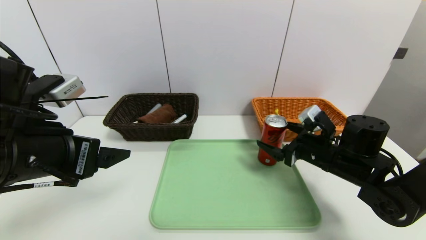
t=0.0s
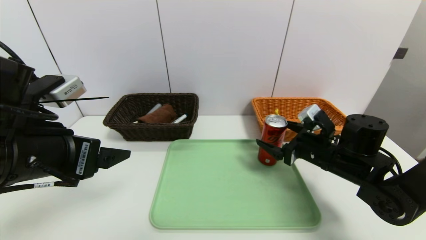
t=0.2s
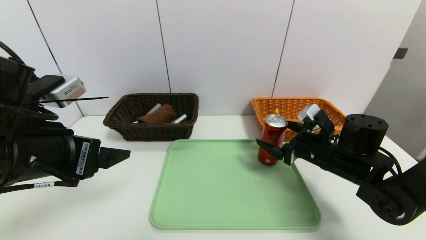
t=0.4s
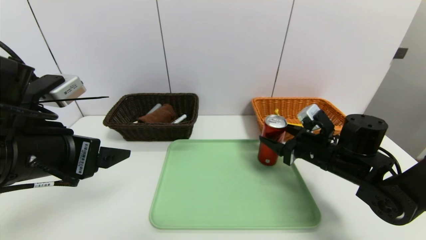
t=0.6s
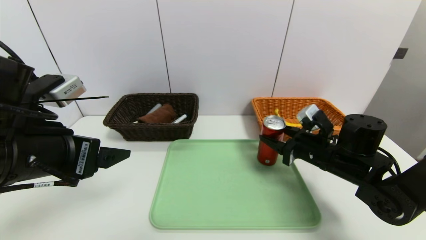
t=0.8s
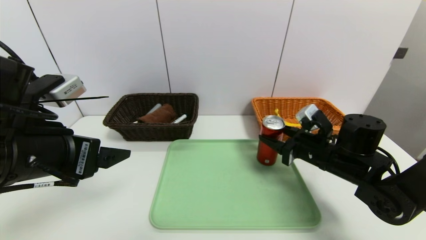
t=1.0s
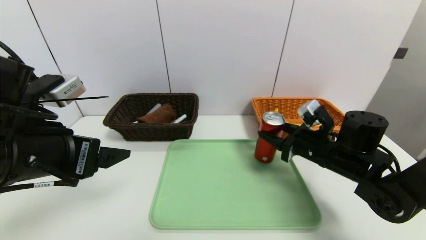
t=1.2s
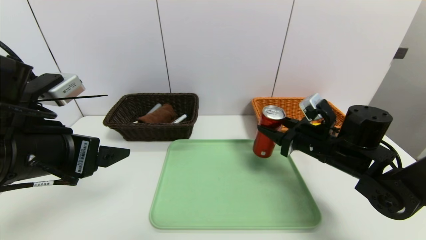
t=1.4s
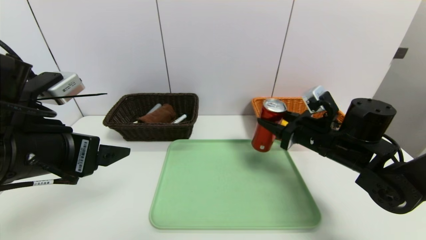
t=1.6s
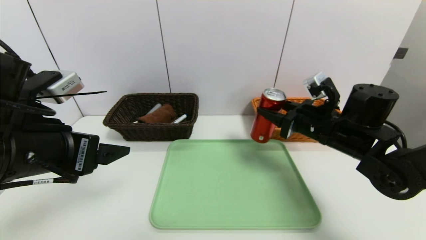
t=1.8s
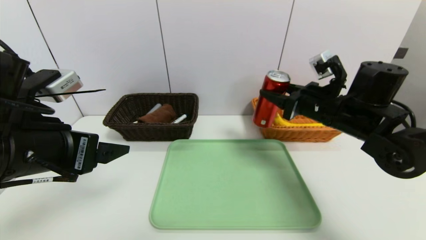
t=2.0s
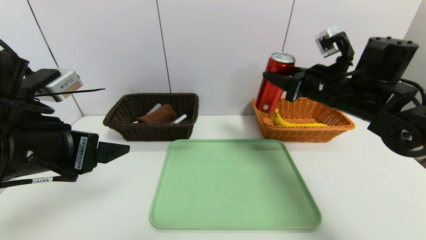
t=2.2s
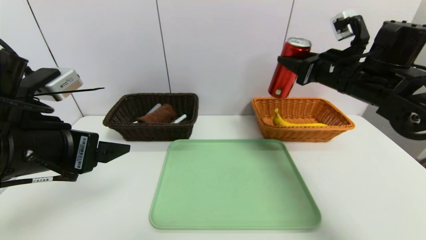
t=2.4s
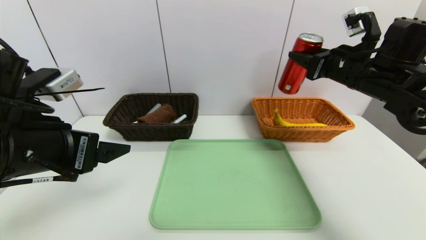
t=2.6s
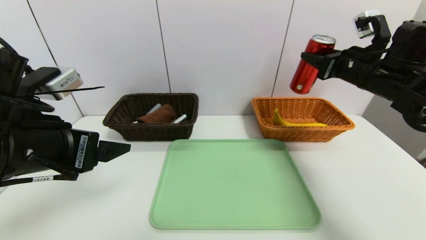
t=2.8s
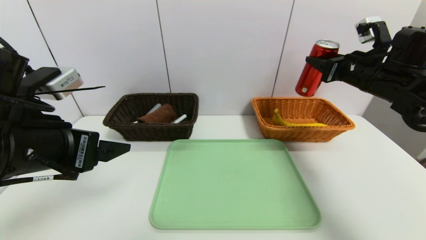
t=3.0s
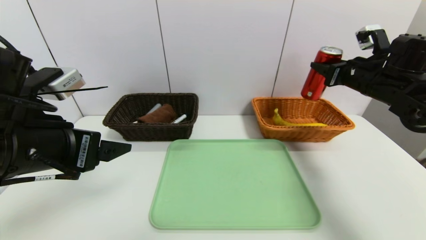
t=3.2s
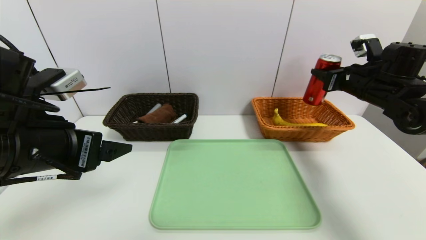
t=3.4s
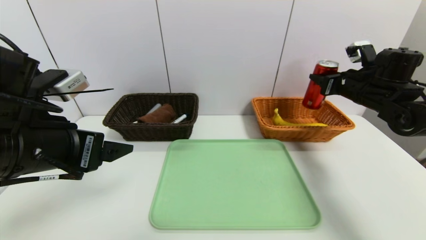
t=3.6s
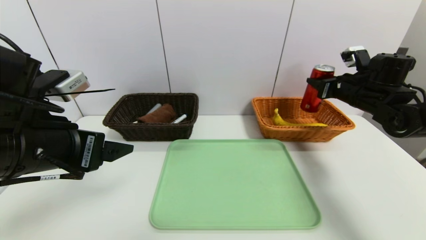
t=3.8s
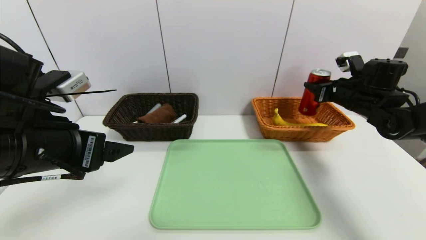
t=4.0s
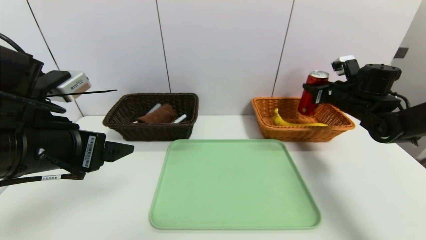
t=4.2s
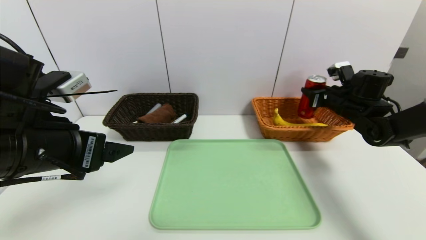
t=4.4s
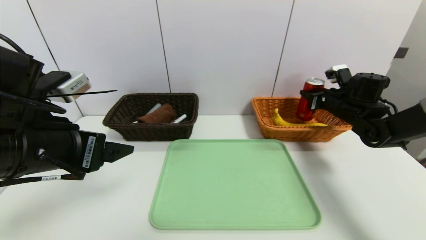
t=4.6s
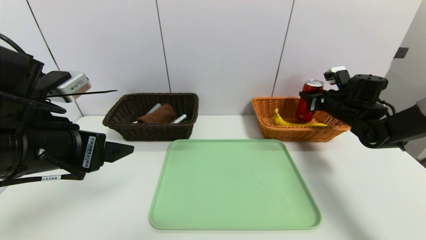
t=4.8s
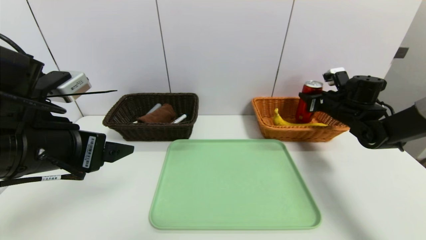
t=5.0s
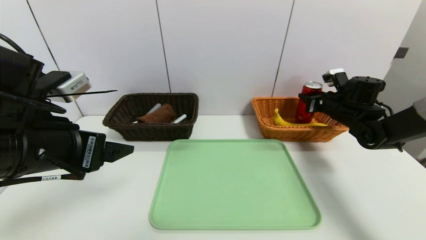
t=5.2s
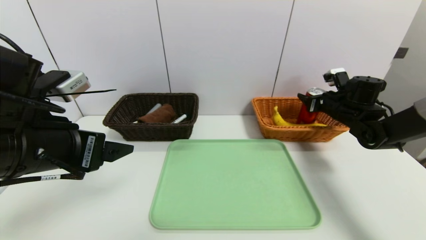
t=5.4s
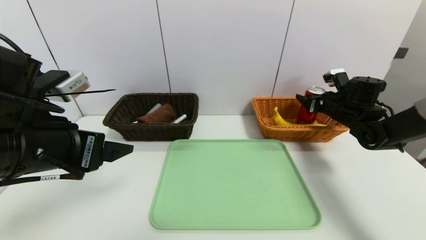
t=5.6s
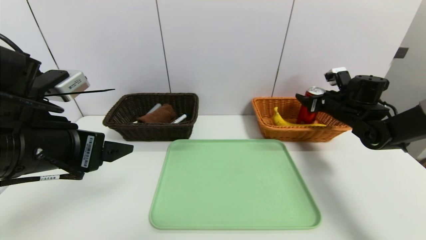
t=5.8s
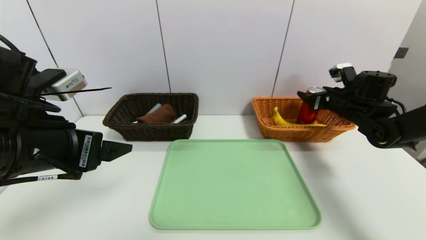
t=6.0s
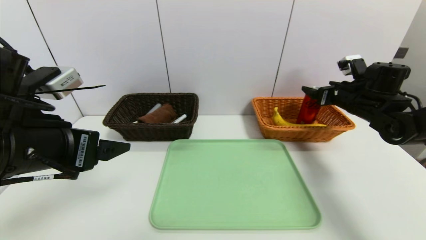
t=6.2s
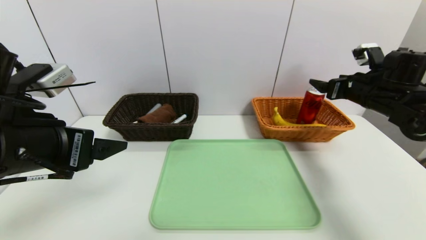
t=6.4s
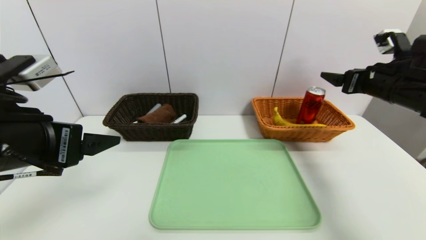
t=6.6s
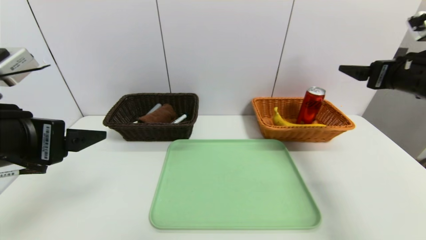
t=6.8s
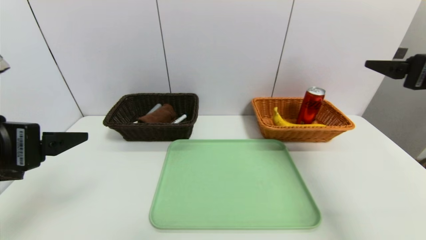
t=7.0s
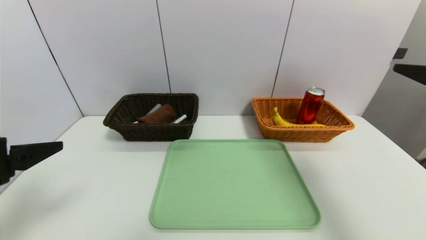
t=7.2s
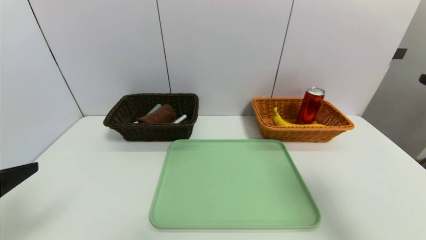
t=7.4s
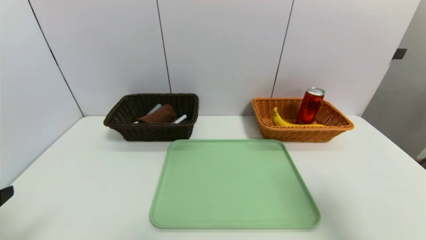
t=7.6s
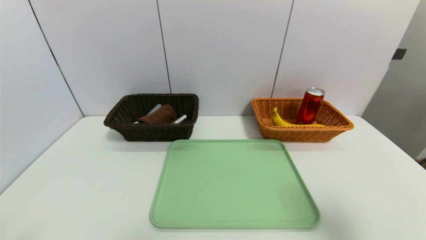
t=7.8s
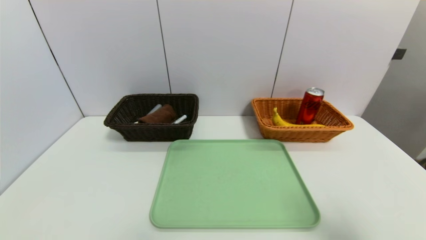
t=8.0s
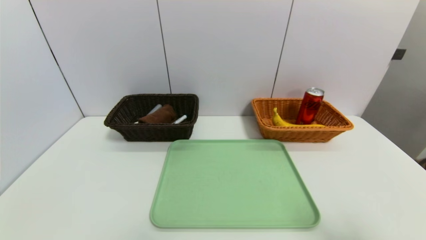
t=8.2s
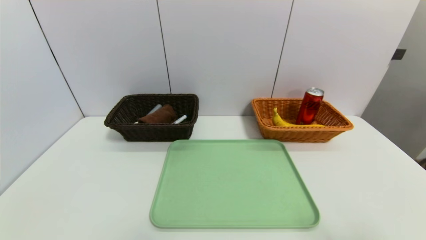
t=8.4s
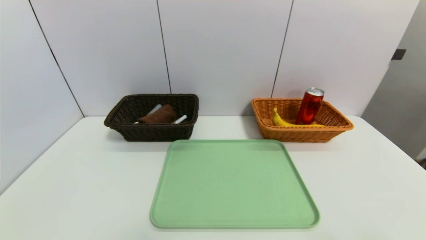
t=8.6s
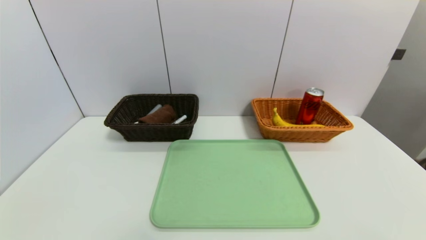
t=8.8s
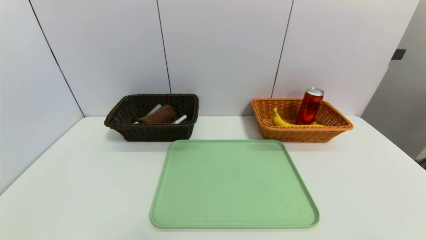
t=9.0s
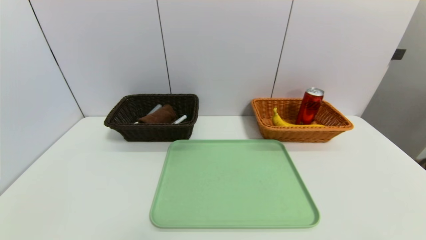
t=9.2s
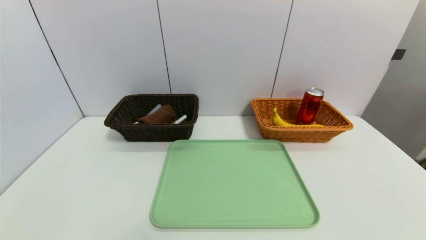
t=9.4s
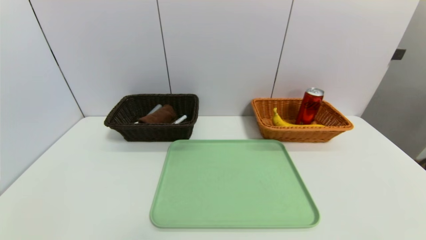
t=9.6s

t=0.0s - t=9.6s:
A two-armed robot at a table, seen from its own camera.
Task of the whole recording: place the food in the right basket with the right gripper, and place the non food items in the left basket with the left gripper.
Step, t=0.0s - t=6.6s: Grasp the canned cola and put it in the right basket.
t=0.0s - t=1.6s: The right gripper closes.
t=1.6s - t=3.2s: The right gripper goes approximately 15 cm to the right, upward and forward.
t=3.2s - t=4.8s: The right gripper goes roughly 10 cm downward and forward.
t=4.8s - t=6.4s: The right gripper travels upward and backward by some 10 cm, and opens.
t=6.4s - t=8.0s: The left gripper moves backward, to the left and downward, approximately 20 cm, while the right gripper heads backward, covering approximately 30 cm.
t=8.0s - t=9.6s: The right gripper travels downward and backward by roughly 15 cm.
